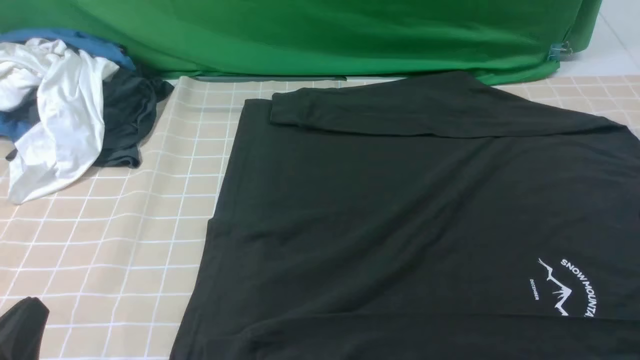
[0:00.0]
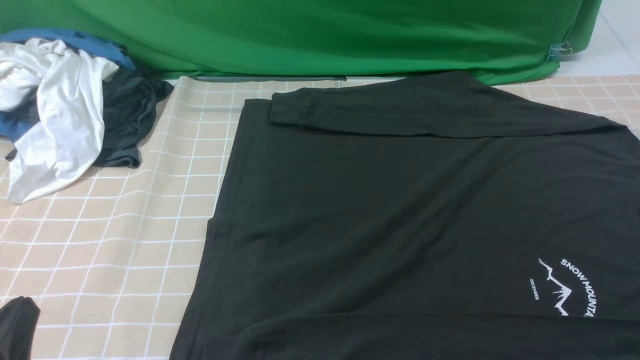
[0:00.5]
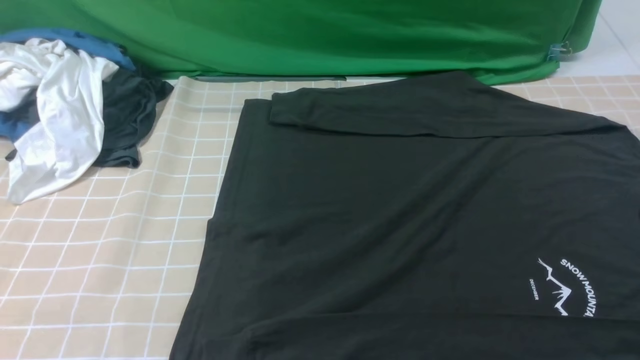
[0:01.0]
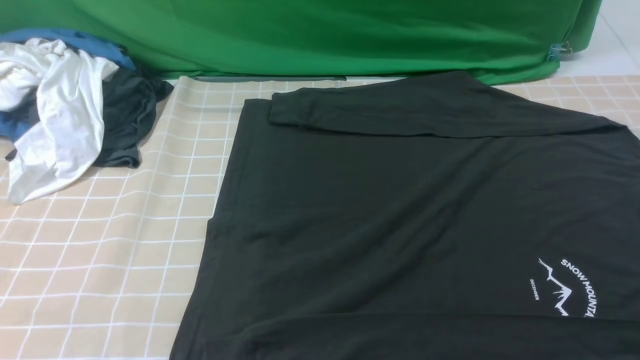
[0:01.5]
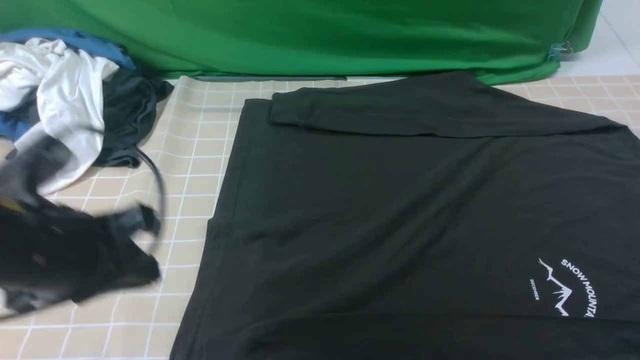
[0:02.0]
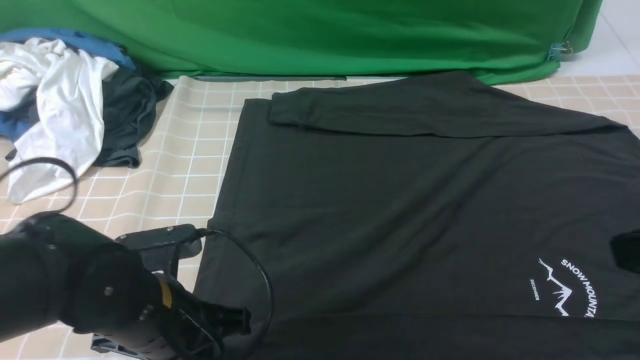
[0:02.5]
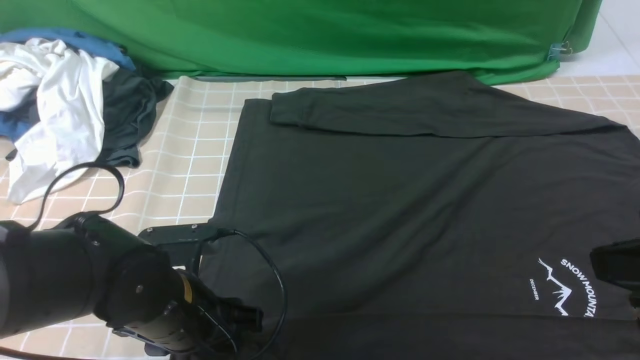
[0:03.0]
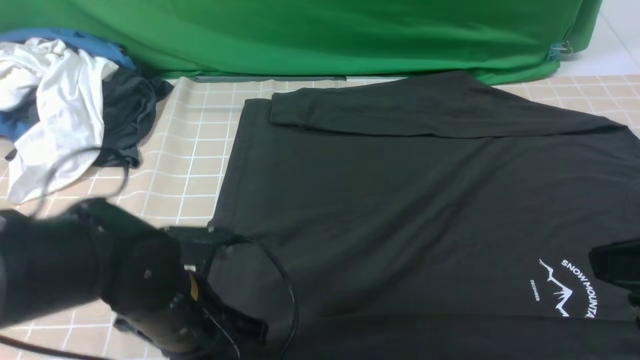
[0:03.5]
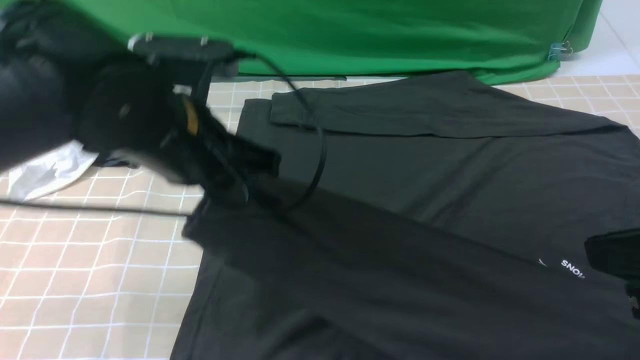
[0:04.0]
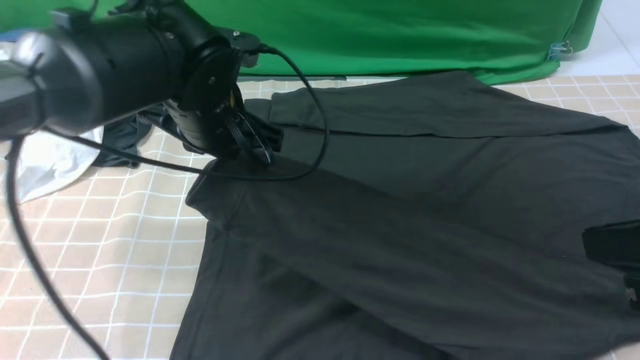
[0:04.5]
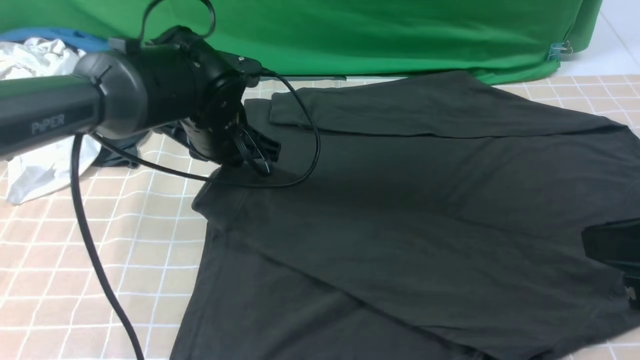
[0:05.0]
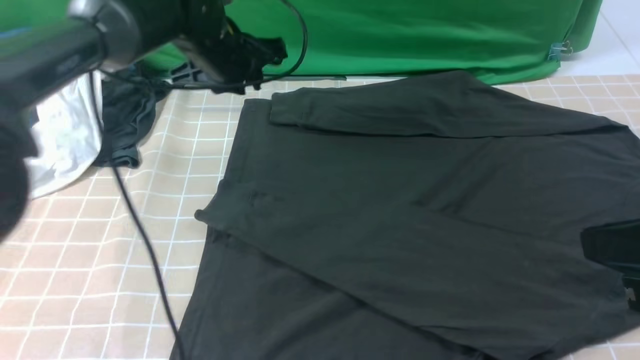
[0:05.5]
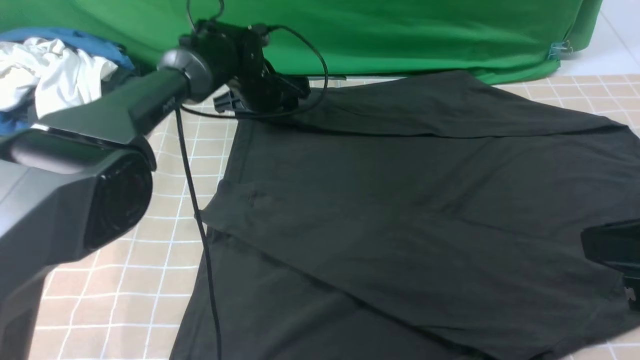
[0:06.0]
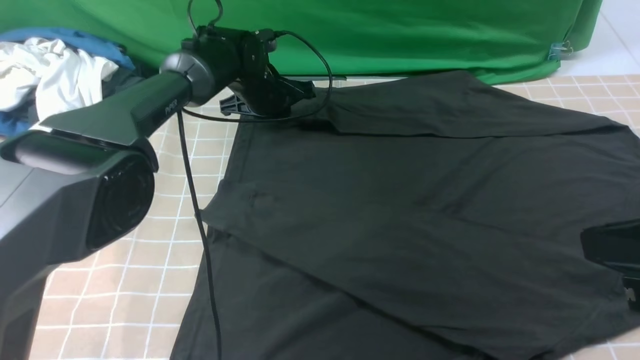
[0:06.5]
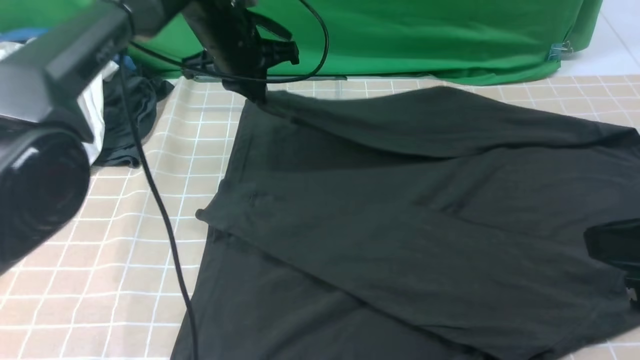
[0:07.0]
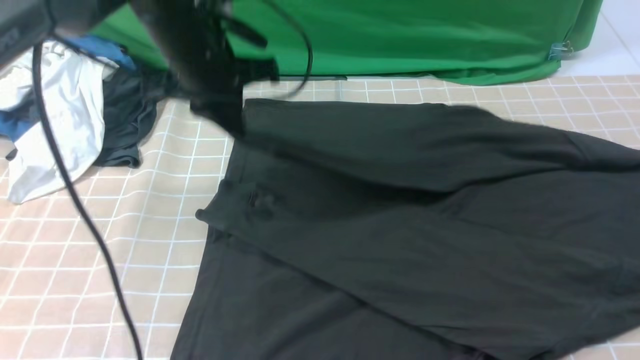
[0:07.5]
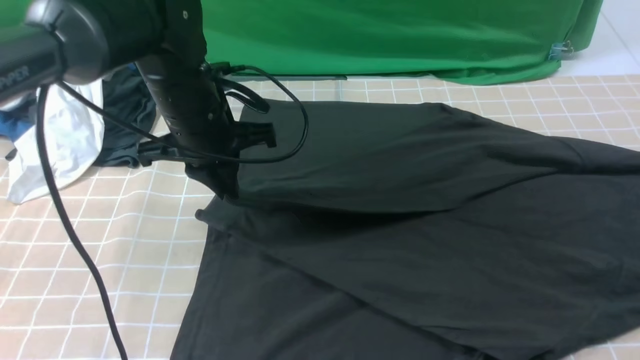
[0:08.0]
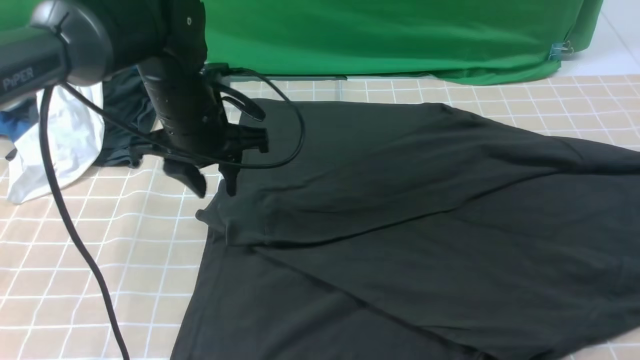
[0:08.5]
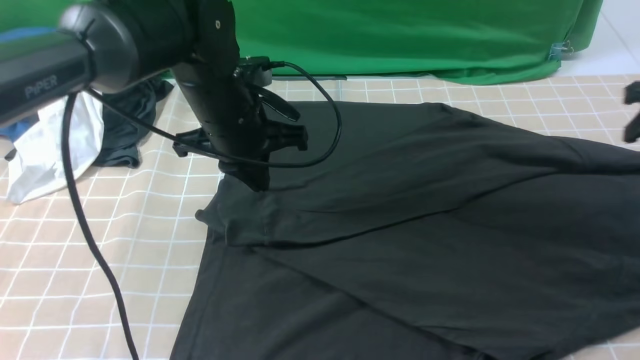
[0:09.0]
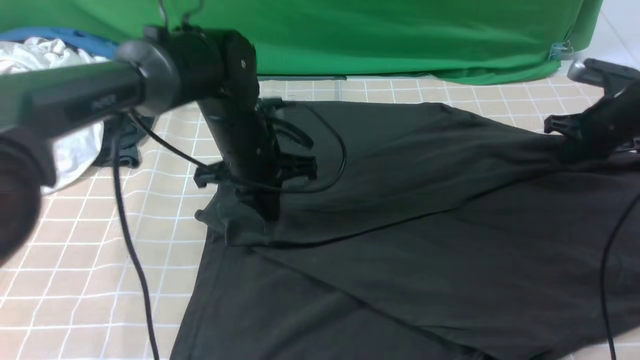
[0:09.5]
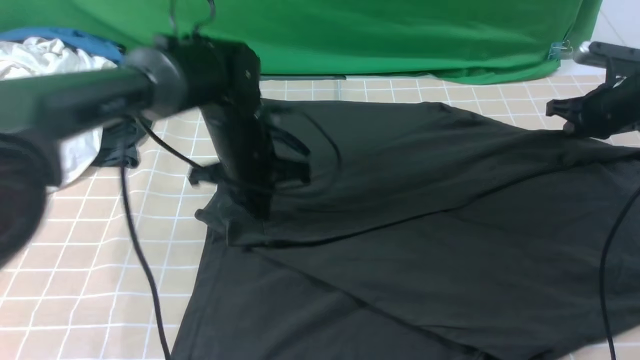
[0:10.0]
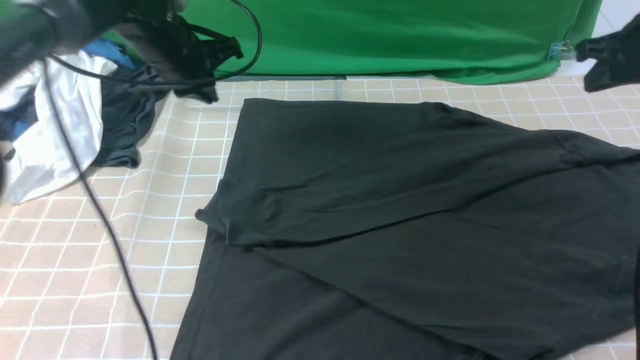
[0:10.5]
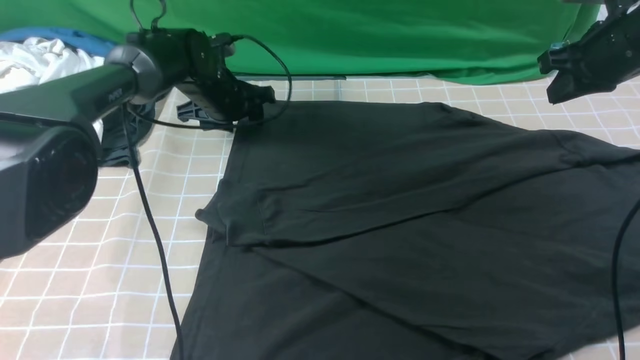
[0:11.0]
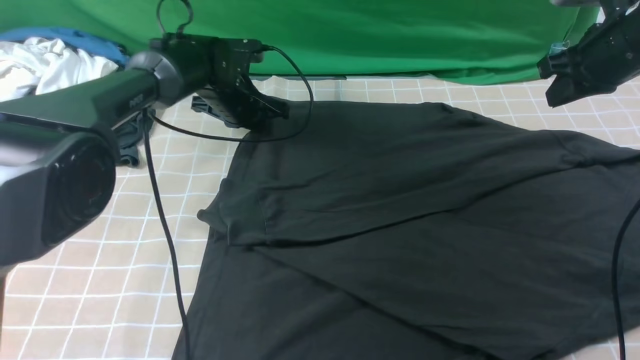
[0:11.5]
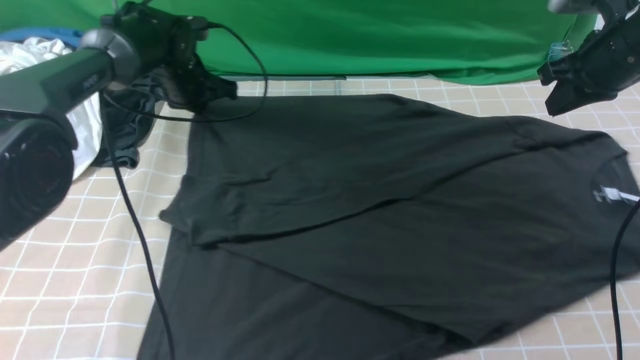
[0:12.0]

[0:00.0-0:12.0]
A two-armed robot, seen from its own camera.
Step, 0:00.0 to 0:03.0: use the left arm to clamp the cuff closest to it.
Step, 0:03.5 to 0:05.0: use the left arm to drag and place the cuff at the centered position on the left edge of the fabric.
Step, 0:05.5 to 0:06.0: use the left arm to clamp the cuff farthest from it.
Step, 0:06.5 to 0:08.0: use the left arm to drag and drop the cuff onto the cuff closest to the left arm.
0:00.0 to 0:02.0: The left gripper moves forward and upward, about 15 cm.
0:02.0 to 0:04.0: The right gripper heads to the left and forward, covering about 10 cm; the left gripper is displaced to the right and forward by approximately 10 cm, goes downward and returns, roughly 10 cm each way, and opens, then closes once more.
0:04.0 to 0:06.0: The left gripper moves forward and downward, approximately 30 cm, and opens.
0:06.0 to 0:08.0: The left gripper goes roughly 20 cm backward and upward, and closes.
0:08.0 to 0:10.0: The right gripper moves forward and downward, approximately 35 cm; the left gripper shifts by approximately 5 cm.
0:10.0 to 0:12.0: The right gripper is displaced upward, to the left and backward by some 15 cm. Meanwhile the left gripper travels forward and to the left by roughly 15 cm, and opens, then closes again.

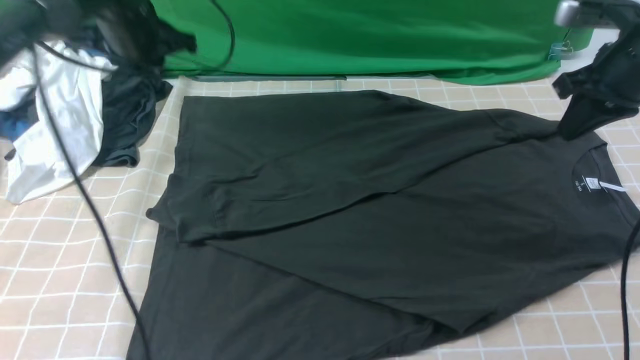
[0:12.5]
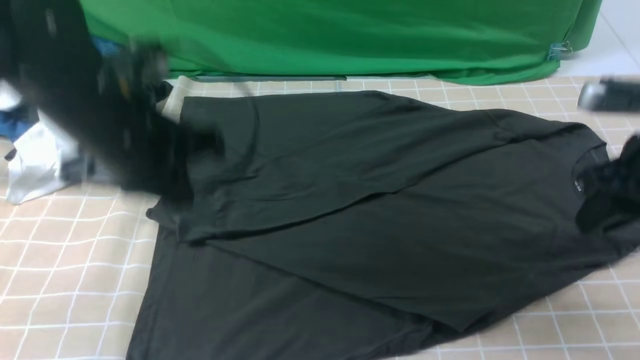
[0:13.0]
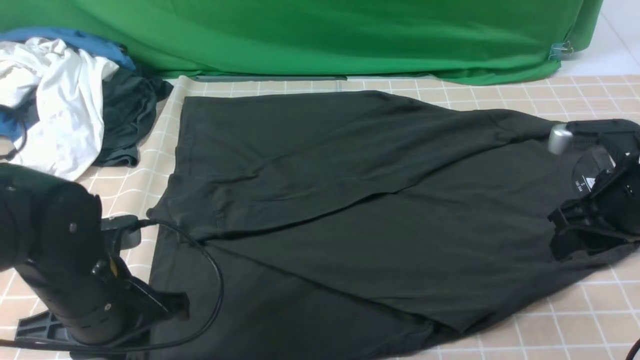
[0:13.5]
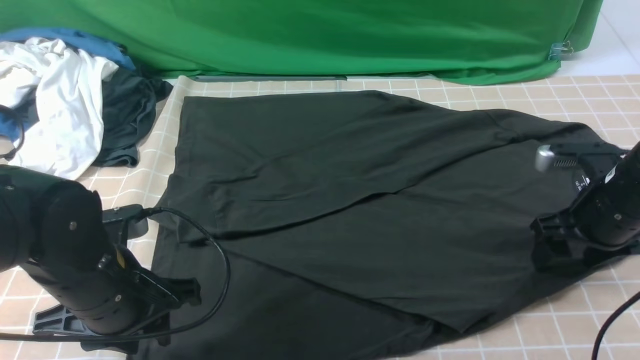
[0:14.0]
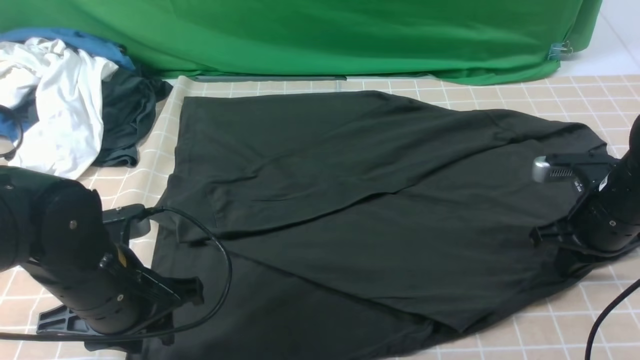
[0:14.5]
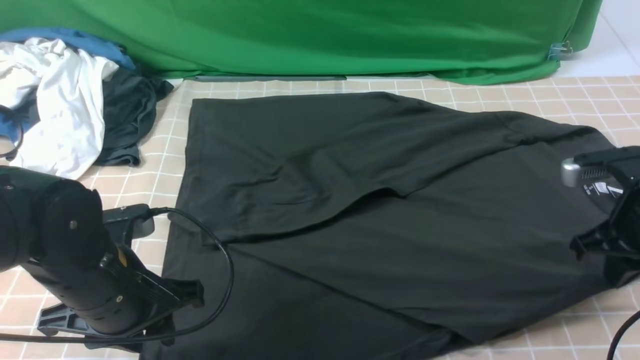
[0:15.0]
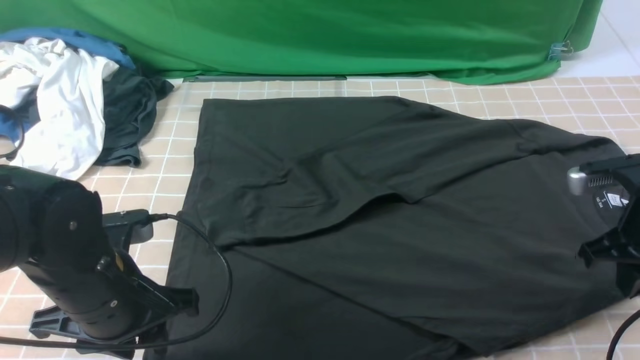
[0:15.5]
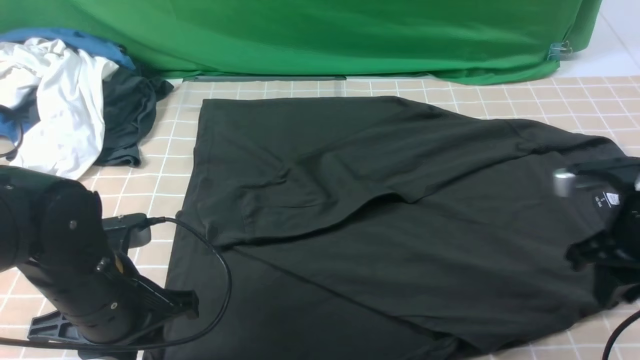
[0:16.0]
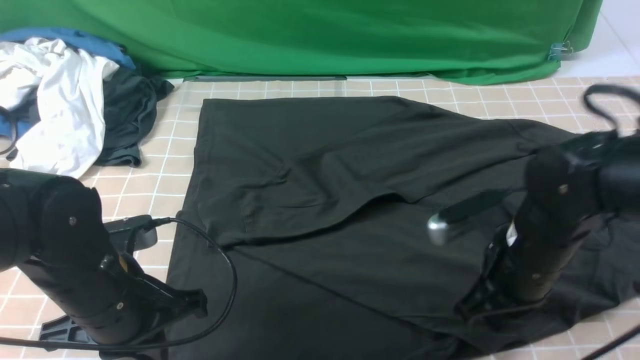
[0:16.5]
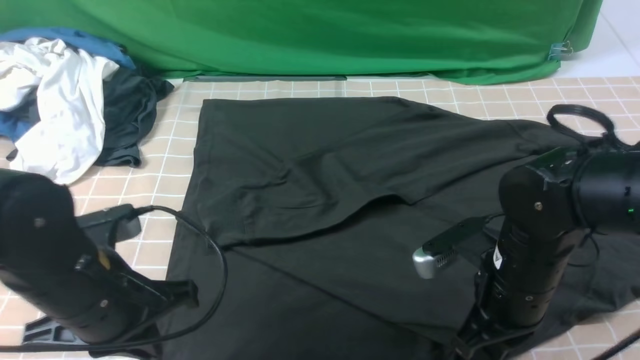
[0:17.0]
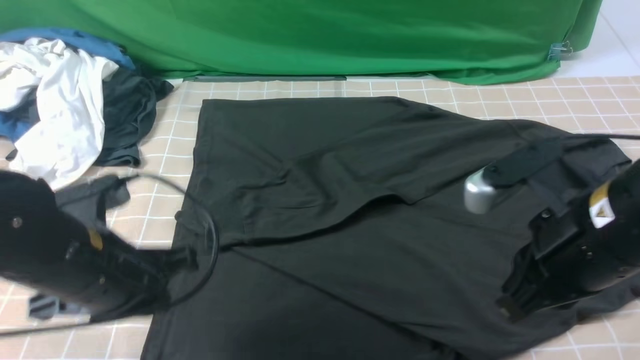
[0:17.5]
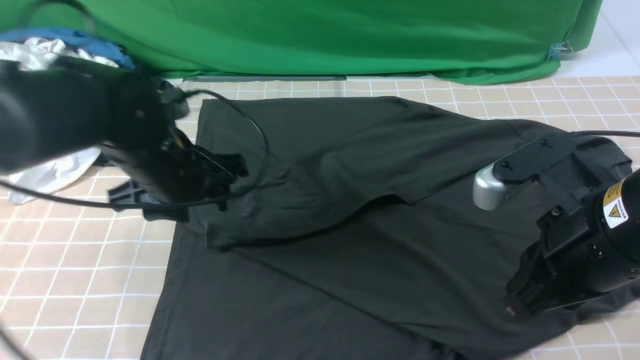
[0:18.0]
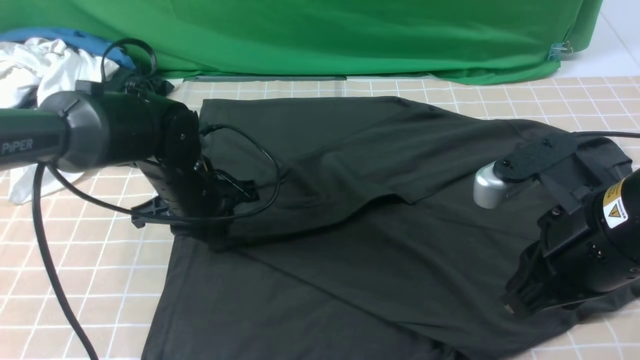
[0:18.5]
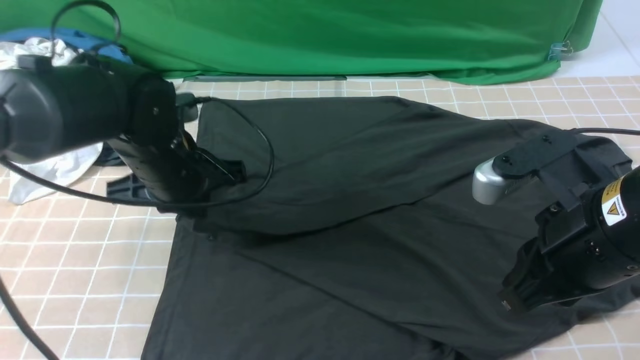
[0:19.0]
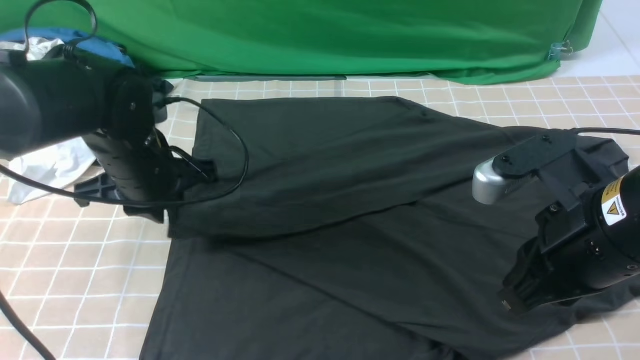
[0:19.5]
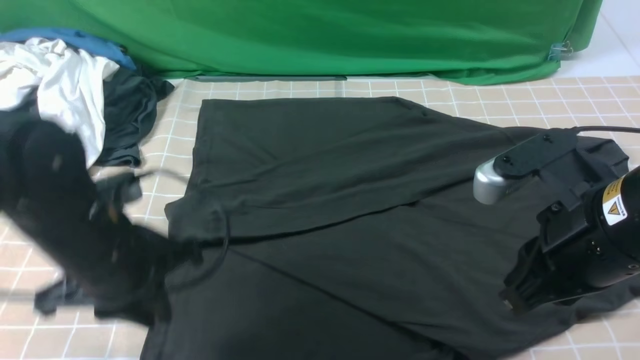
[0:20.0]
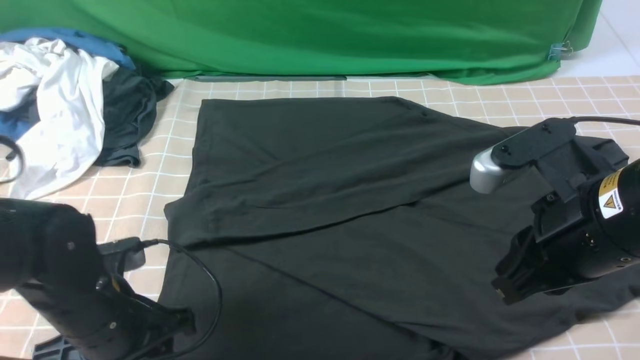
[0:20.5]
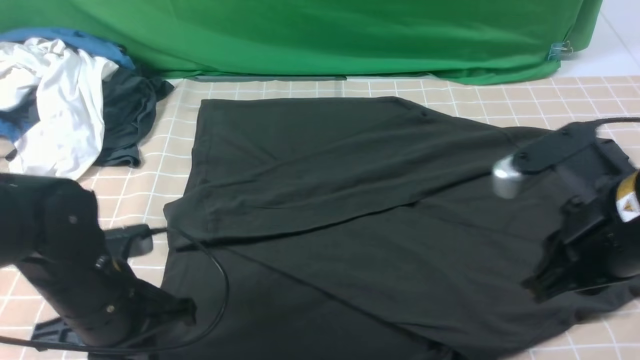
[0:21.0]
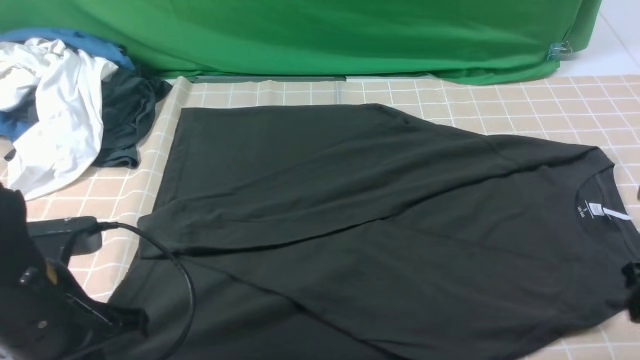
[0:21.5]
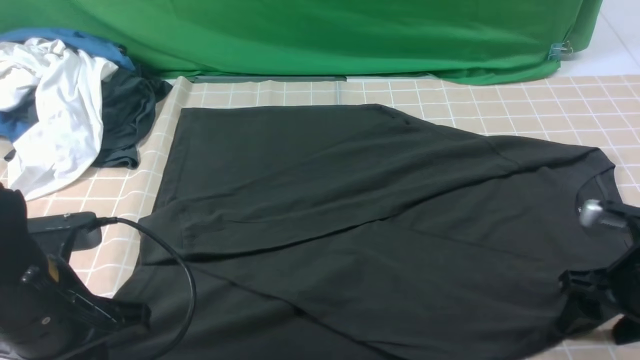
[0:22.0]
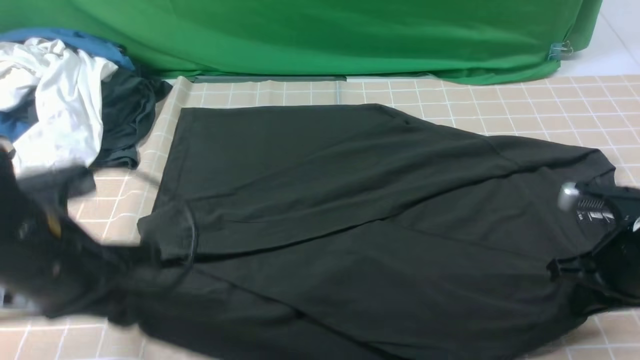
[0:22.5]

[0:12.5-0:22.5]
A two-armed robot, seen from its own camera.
Step, 0:12.5 to 0:22.0: use both arms simultaneously to clamp the lower edge of the clothing fabric.
0:12.5 to 0:14.5: The left gripper moves backward, some 25 cm, and opens up. The right gripper shifts about 15 cm downward and backward, and opens, then closes again.
0:14.5 to 0:16.5: The left gripper closes. Meanwhile the right gripper is displaced to the left and backward by about 15 cm.
0:16.5 to 0:18.5: The right gripper heads upward and backward, covering approximately 15 cm; the left gripper travels forward by some 15 cm, and opens up.
0:18.5 to 0:20.5: The left gripper moves backward, some 15 cm, and opens.
0:20.5 to 0:22.5: The left gripper heads upward, covering some 10 cm, and closes; the right gripper heads to the right, downward and forward, covering some 15 cm, and opens, then closes once more.
